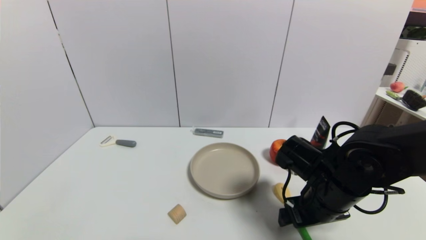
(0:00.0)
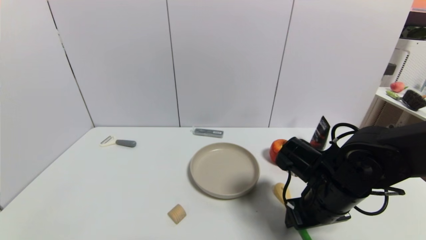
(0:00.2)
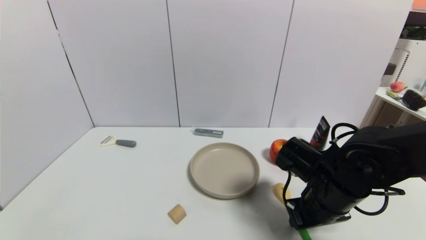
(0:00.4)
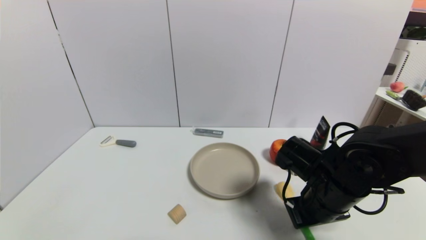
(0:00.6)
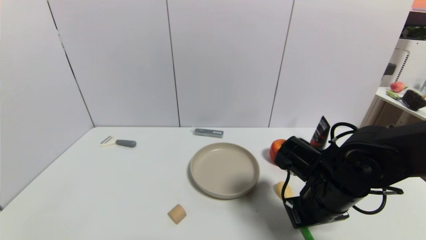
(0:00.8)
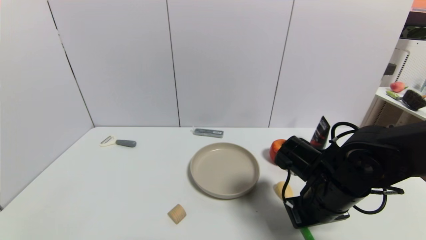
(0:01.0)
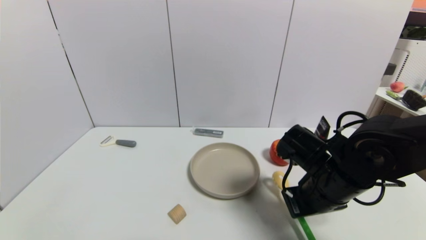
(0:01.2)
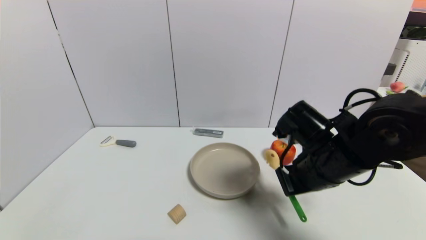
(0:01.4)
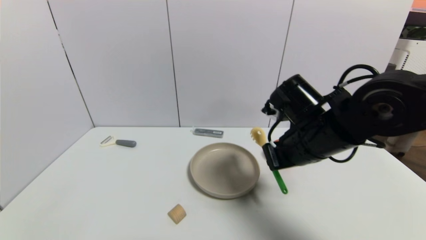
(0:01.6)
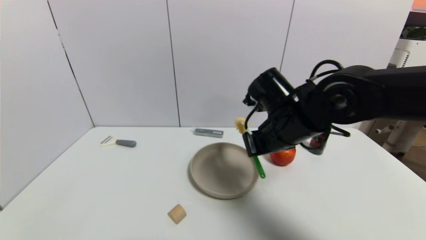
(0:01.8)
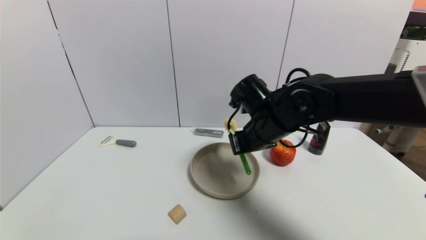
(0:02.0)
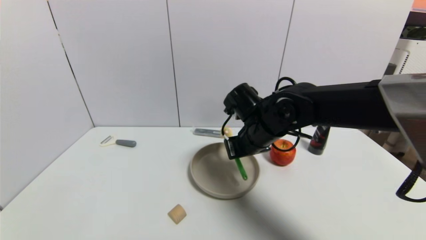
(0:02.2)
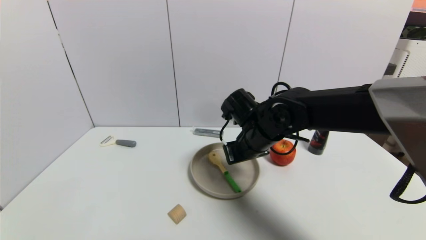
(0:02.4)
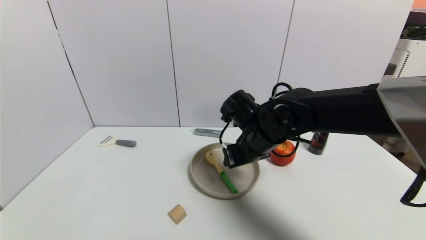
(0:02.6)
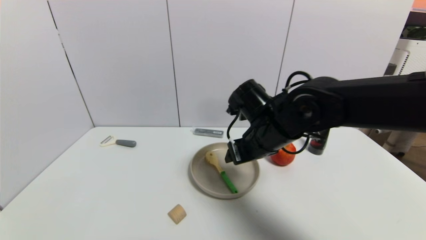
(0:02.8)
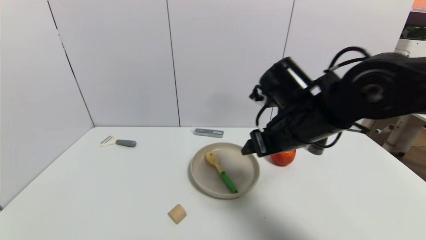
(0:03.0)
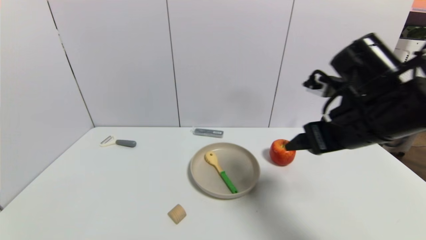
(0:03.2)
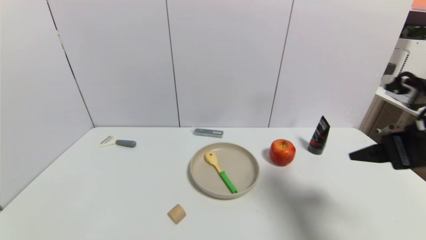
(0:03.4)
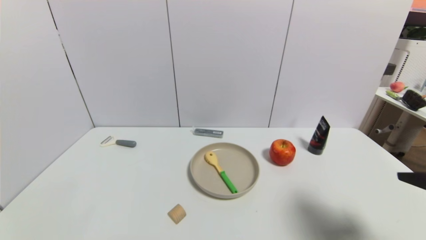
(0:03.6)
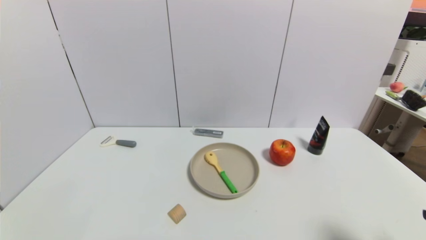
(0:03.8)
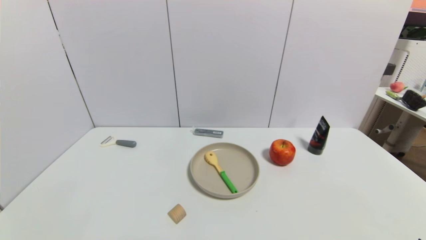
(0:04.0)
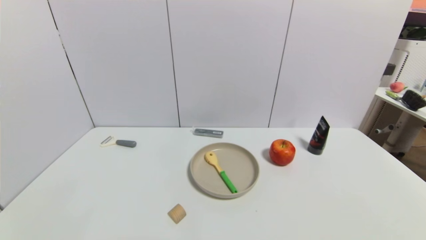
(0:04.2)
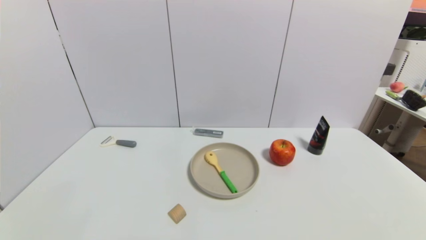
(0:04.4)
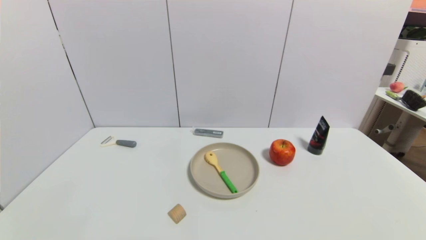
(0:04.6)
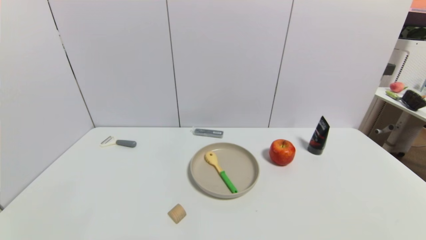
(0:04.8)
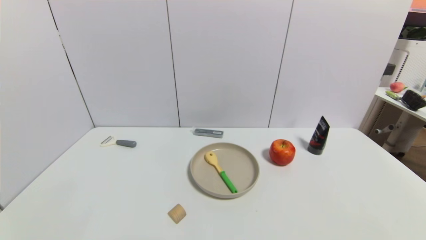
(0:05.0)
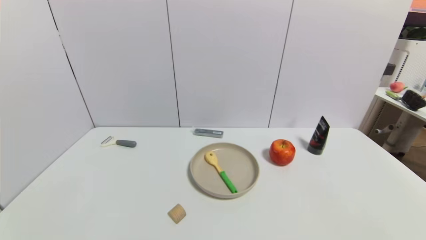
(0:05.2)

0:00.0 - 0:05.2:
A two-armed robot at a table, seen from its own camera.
Task of the whole recording: use a gripper to pick the target object and place on the brown plate.
Step, 0:01.0 - 0:02.6: Place the back scratcher on the brown plate with the right gripper.
0:00.0 - 0:01.8: The right gripper is displaced upward, forward and to the left by approximately 15 cm, and closes up.
0:01.8 - 0:03.4: The right gripper shifts about 20 cm to the right and backward, and opens up.
0:03.4 - 0:05.2: The right gripper moves downward and backward, roughly 25 cm.

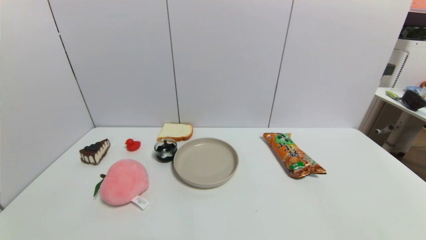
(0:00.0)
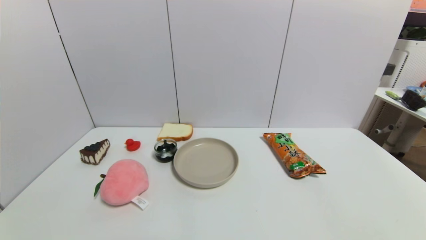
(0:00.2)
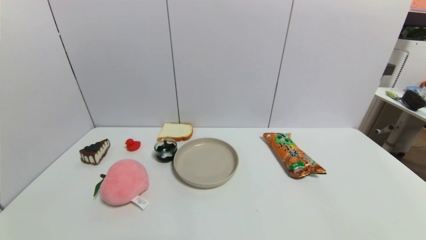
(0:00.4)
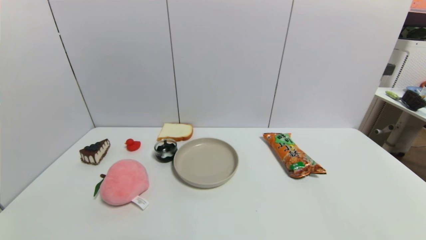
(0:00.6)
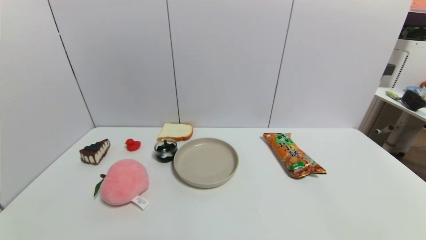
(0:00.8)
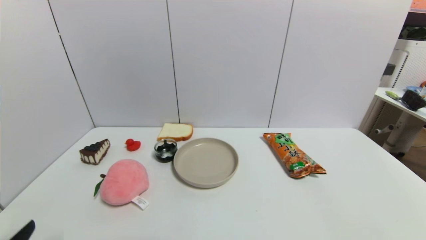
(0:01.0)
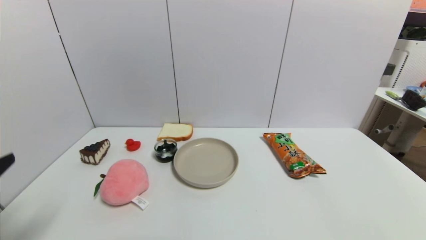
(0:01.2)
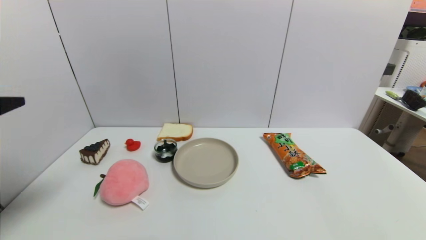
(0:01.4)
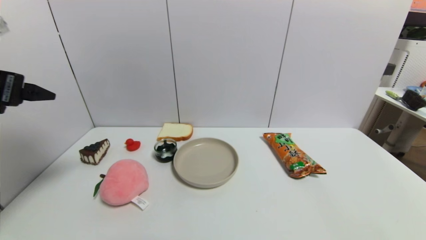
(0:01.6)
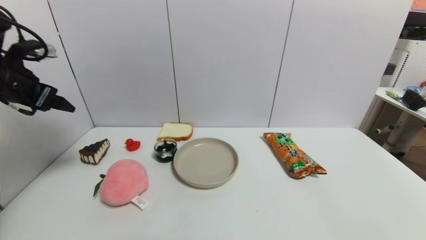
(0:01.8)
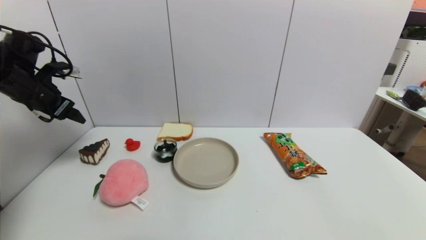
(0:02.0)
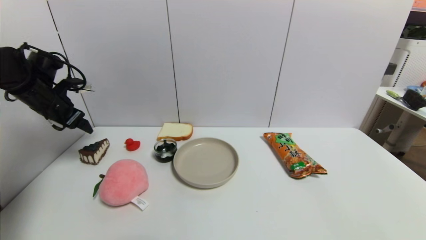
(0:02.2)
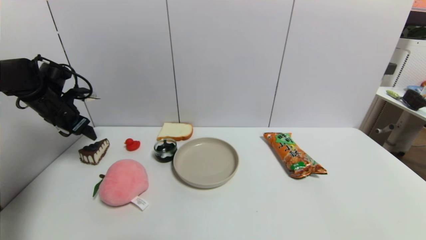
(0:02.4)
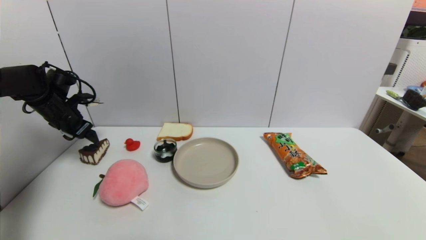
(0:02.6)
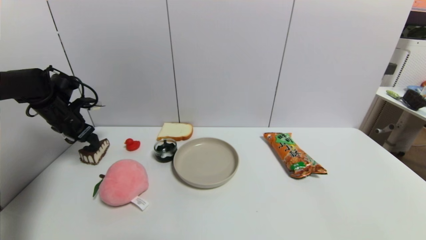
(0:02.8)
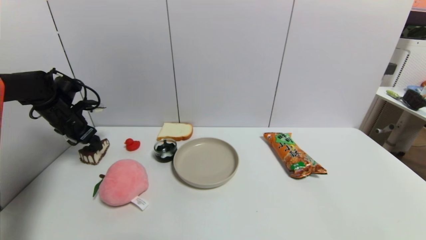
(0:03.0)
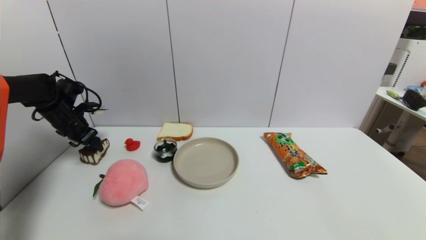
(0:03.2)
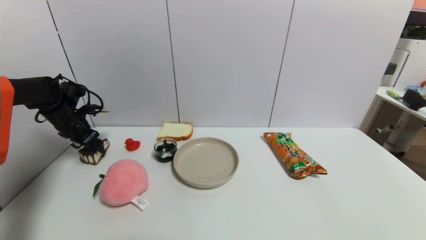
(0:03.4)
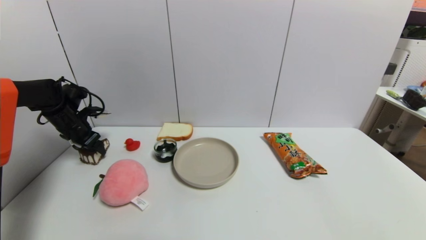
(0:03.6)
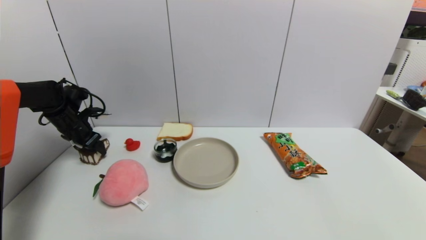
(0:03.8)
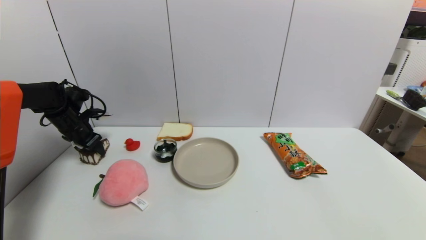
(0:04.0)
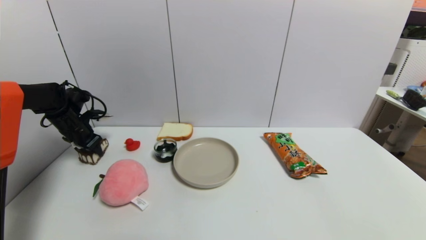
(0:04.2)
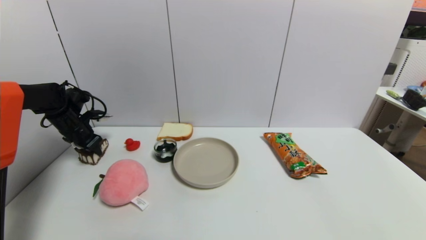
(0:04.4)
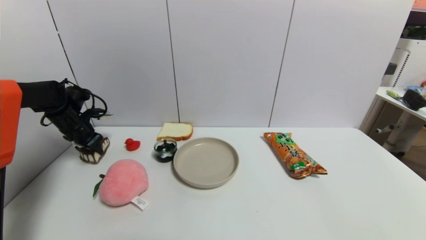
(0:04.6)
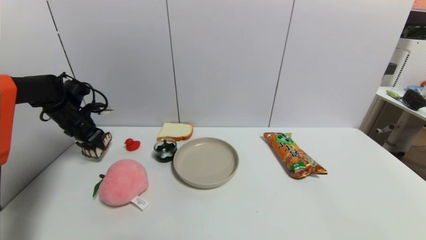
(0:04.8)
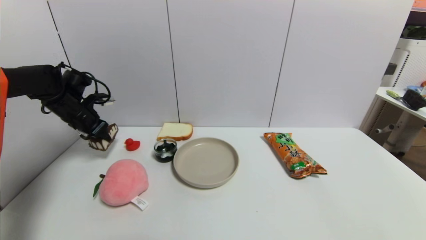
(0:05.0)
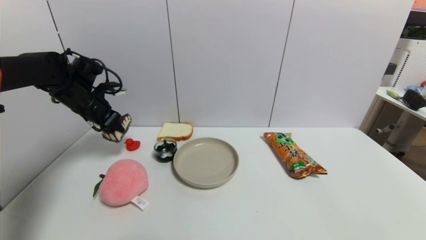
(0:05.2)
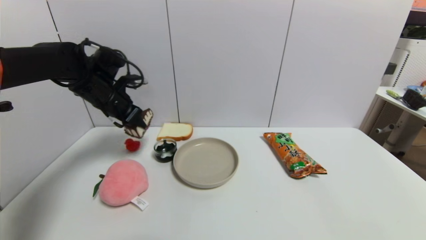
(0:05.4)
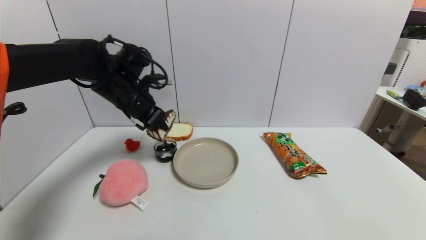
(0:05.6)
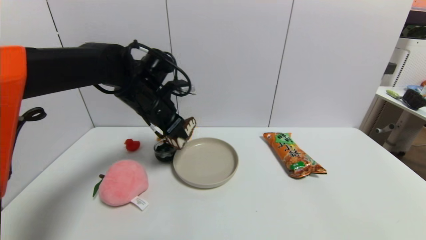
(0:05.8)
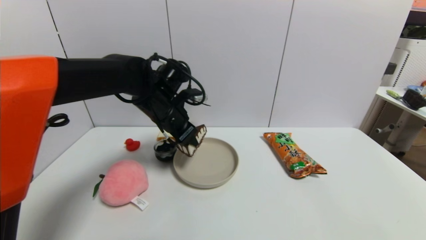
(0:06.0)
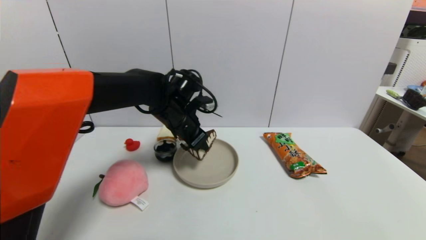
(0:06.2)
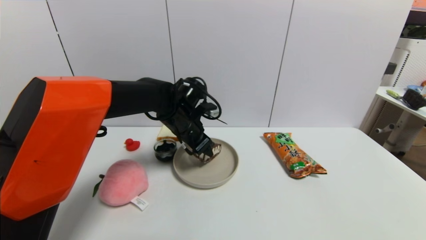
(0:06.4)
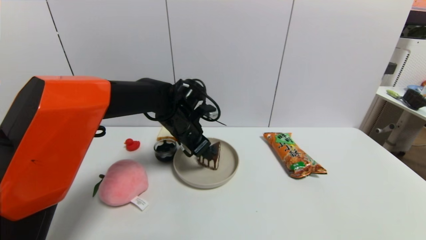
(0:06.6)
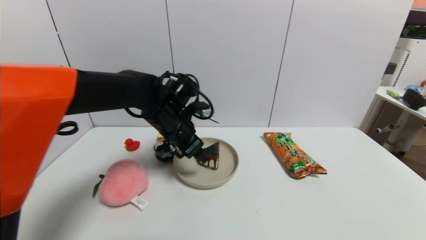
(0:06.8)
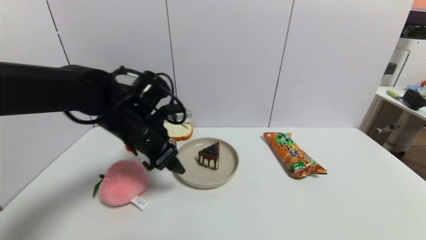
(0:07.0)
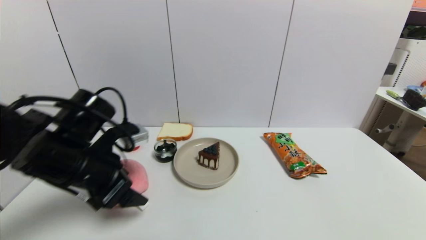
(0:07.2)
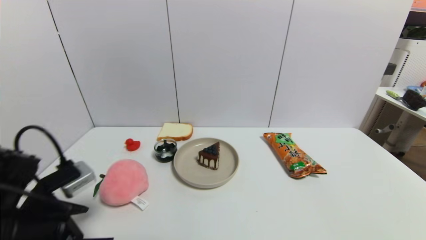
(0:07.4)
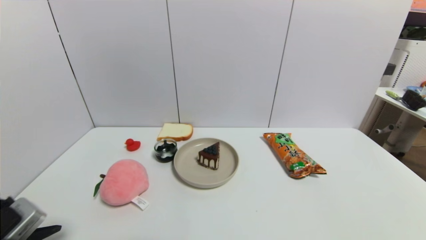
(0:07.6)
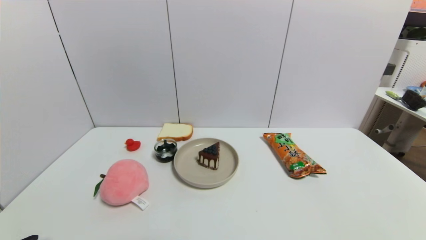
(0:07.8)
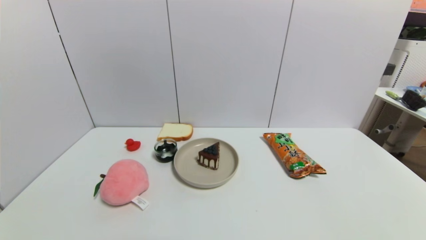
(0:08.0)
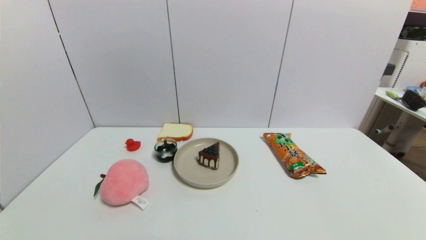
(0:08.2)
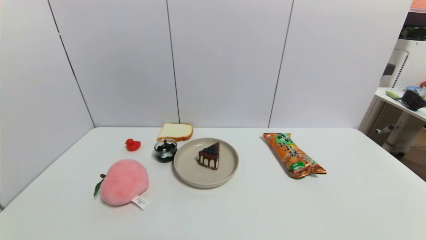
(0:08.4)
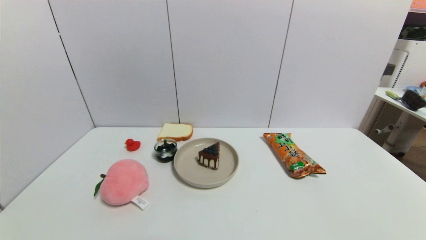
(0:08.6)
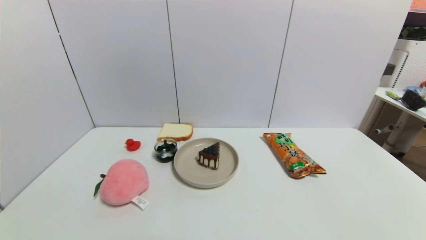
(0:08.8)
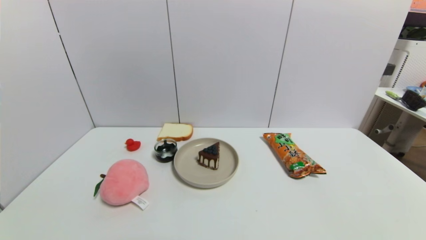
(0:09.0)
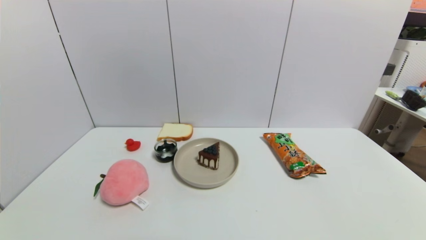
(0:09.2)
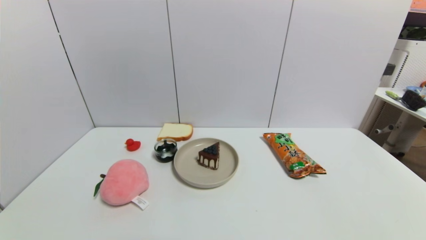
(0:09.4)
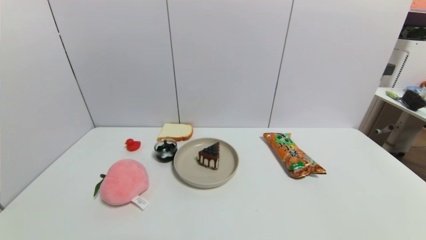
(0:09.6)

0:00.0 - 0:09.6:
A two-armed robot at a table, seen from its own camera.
Task of the whole recording: use a gripper to pick the target object and place on the brown plate.
Step, 0:00.0 - 0:04.4: Grasp the chocolate cake with the left gripper.
Step, 0:04.6 - 0:06.8: Place the chocolate cake on the brown plate with the left gripper.
0:00.0 - 0:01.6: The left gripper goes roughly 35 cm upward and forward.
0:01.6 - 0:03.2: The left gripper shifts about 25 cm forward and downward.
0:03.2 - 0:04.8: The left gripper closes its fingers.
0:04.8 - 0:06.4: The left gripper is displaced to the right by approximately 30 cm, and opens.
0:06.4 - 0:08.0: The left gripper heads backward and to the left, covering about 40 cm, and opens.
